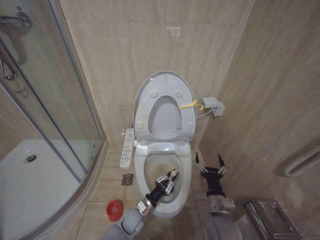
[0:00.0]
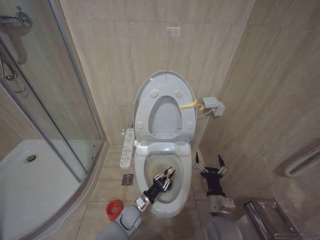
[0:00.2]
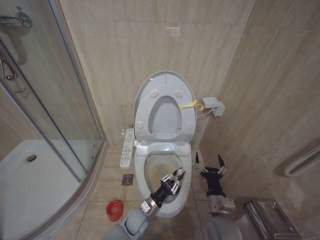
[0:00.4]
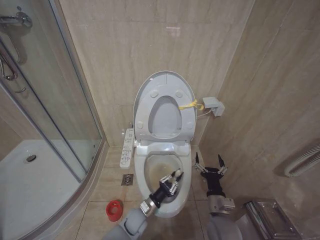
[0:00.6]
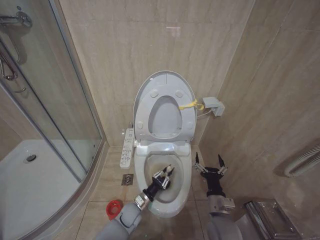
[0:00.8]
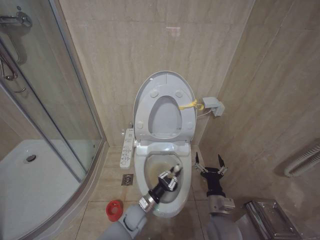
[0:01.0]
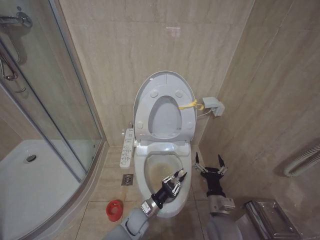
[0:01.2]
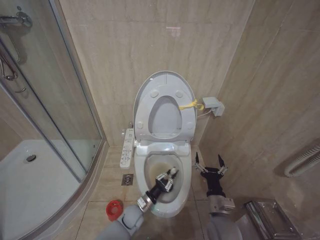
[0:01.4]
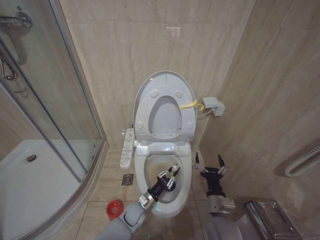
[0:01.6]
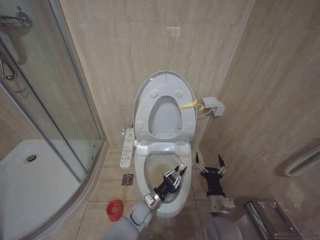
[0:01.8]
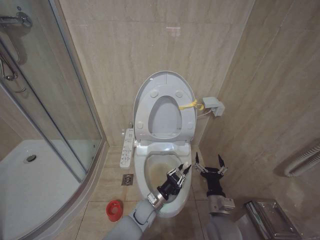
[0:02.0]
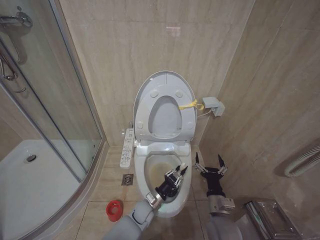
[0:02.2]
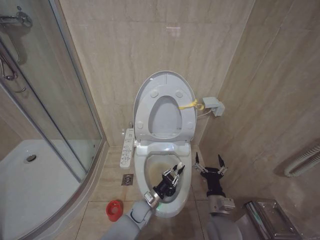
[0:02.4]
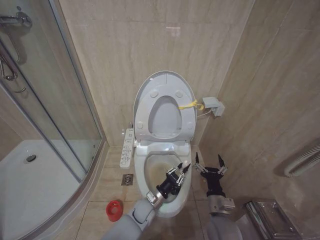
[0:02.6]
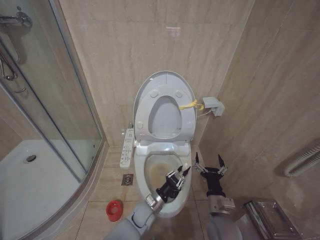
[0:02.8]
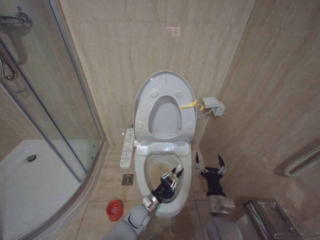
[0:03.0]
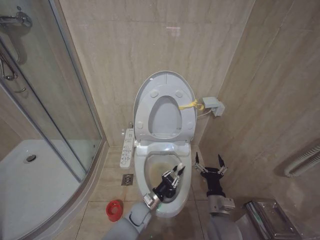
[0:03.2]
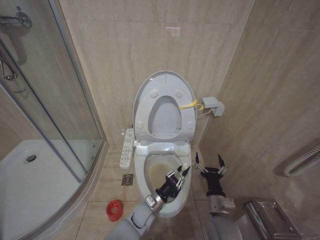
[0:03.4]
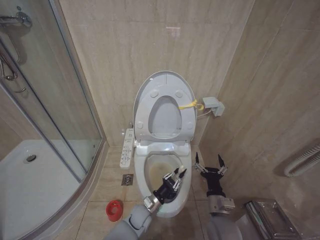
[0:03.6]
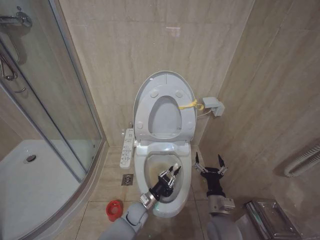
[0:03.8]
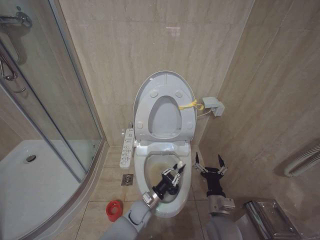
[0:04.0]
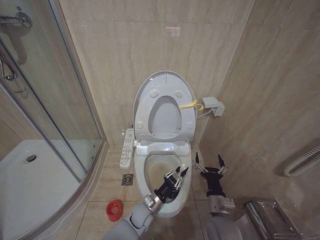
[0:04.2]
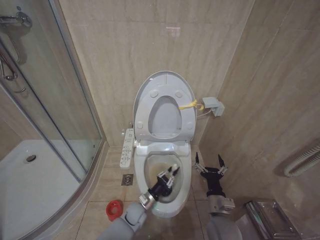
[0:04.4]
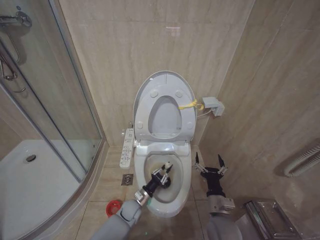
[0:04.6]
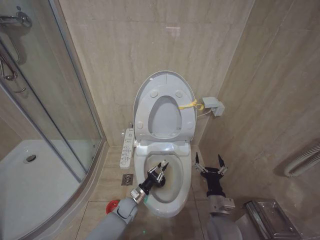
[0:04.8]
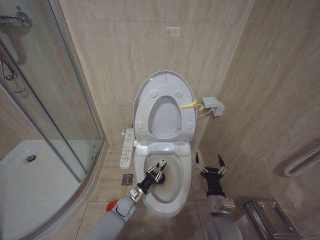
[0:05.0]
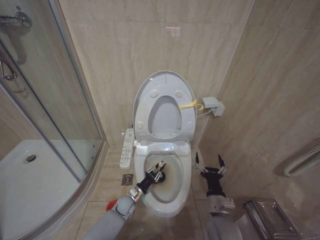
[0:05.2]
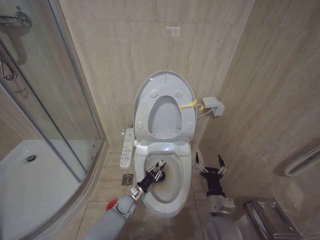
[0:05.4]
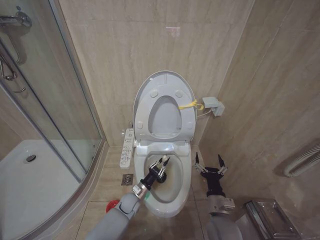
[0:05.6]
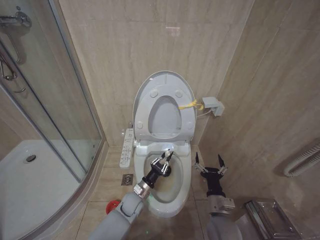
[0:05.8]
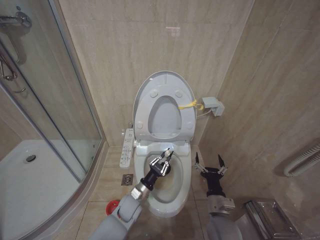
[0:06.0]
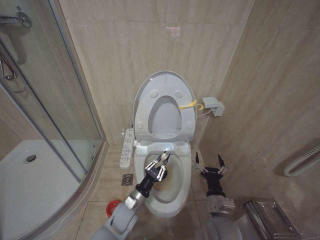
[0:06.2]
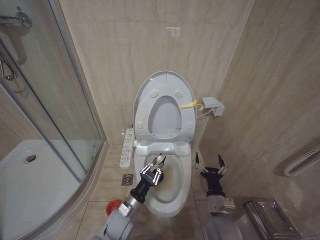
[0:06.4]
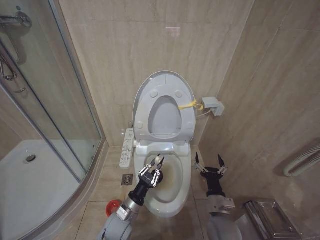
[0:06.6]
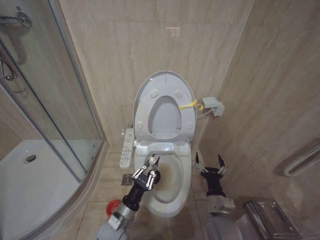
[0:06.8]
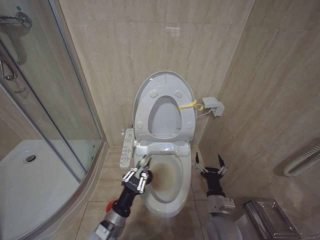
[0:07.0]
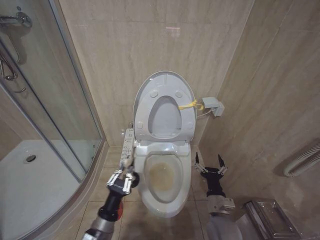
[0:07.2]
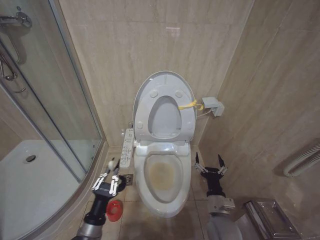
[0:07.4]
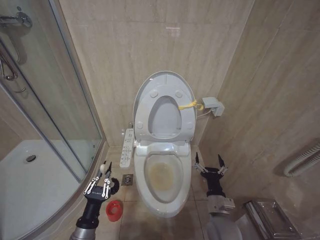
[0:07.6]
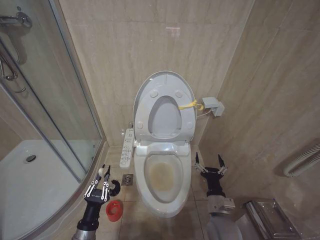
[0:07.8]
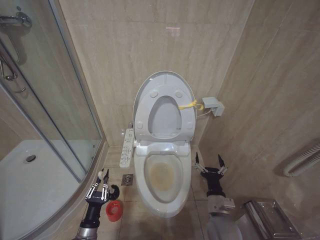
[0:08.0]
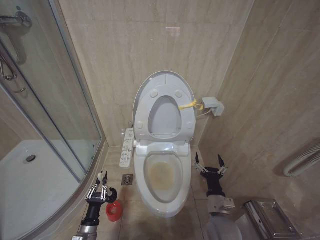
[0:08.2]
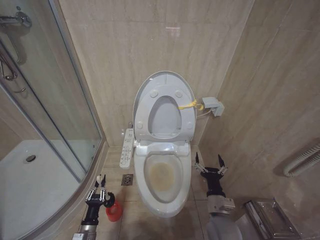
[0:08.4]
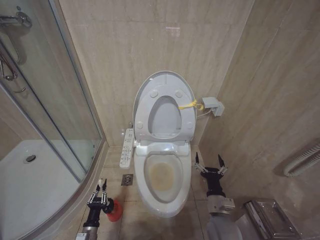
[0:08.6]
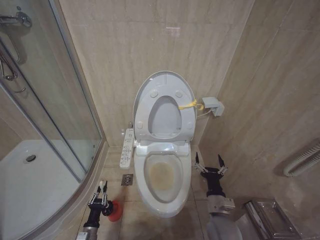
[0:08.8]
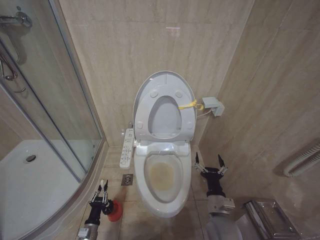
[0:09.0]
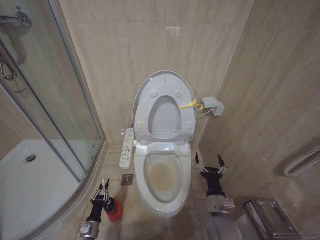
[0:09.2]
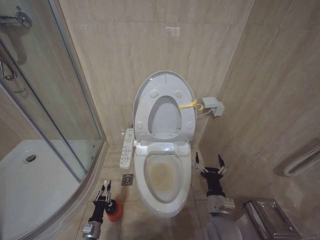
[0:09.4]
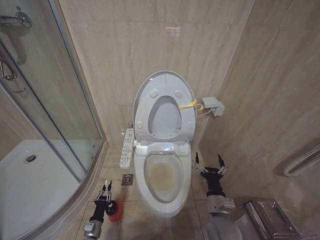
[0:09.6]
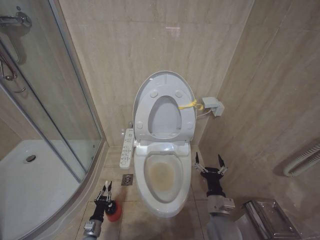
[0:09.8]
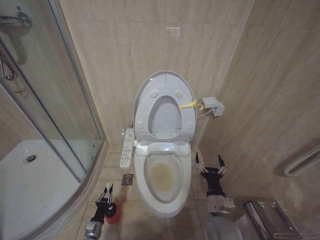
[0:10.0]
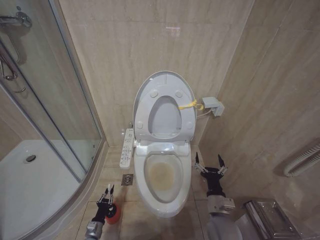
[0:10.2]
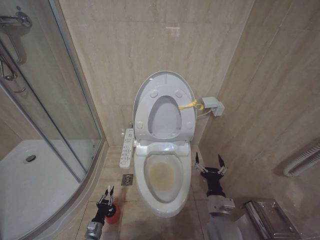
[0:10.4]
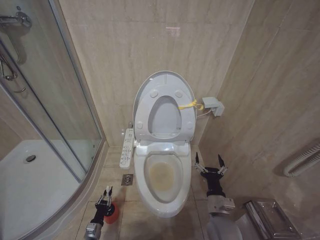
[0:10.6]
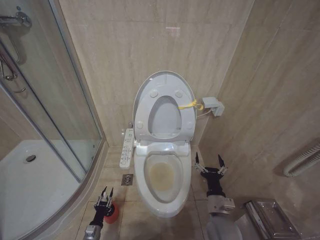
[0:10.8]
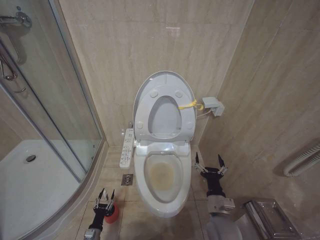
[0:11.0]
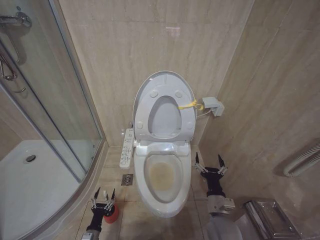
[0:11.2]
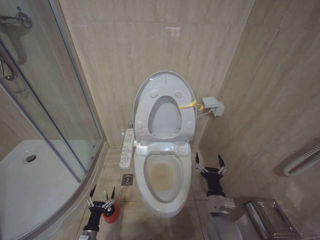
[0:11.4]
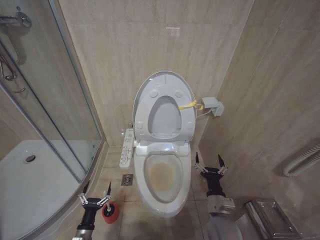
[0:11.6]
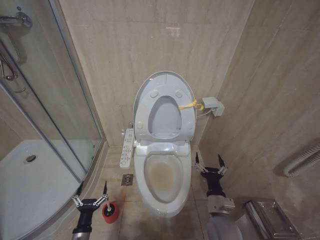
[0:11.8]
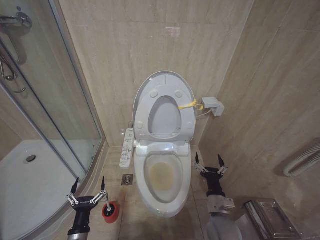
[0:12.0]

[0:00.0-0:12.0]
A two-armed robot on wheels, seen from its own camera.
Task of the whole recording: Open the toilet lid, clean the toilet bowl with a toilet brush, close the toilet lid, and flush.
0:00.0 to 0:01.6: The grippers move only a little.
0:03.0 to 0:04.4: There are only small adjustments of the grippers.
0:04.4 to 0:06.0: The left gripper travels upward by some 5 cm.
0:06.0 to 0:07.6: The left gripper travels backward and to the left by roughly 20 cm.
0:07.6 to 0:09.0: The left gripper shifts about 20 cm downward.
0:09.0 to 0:10.4: The left gripper moves downward, approximately 5 cm.
0:10.4 to 0:12.0: The left gripper is displaced upward and backward by about 20 cm, and opens.

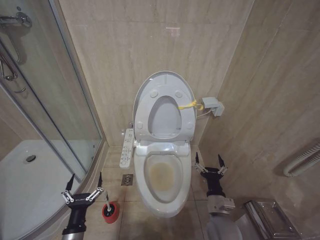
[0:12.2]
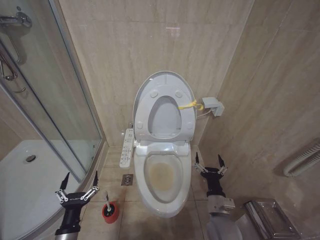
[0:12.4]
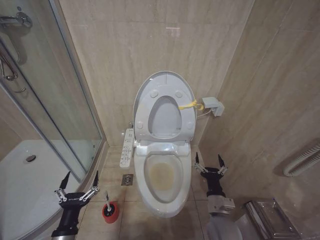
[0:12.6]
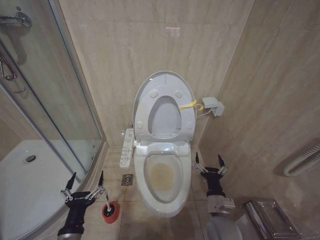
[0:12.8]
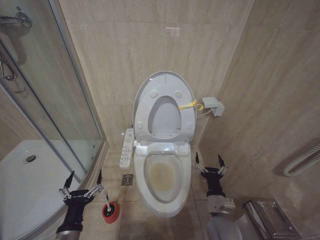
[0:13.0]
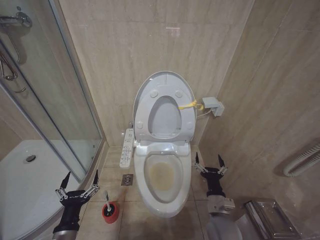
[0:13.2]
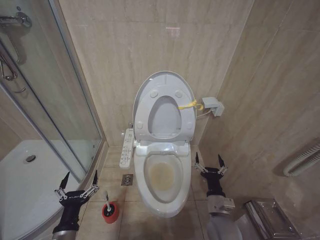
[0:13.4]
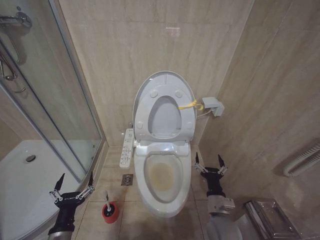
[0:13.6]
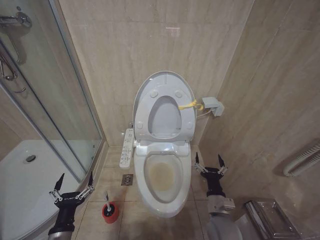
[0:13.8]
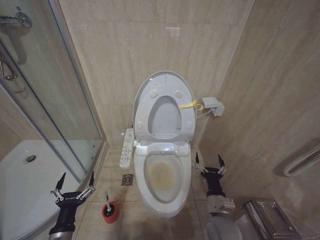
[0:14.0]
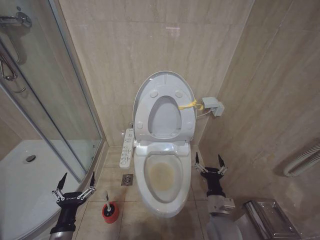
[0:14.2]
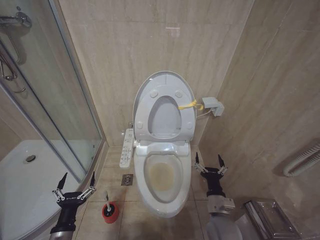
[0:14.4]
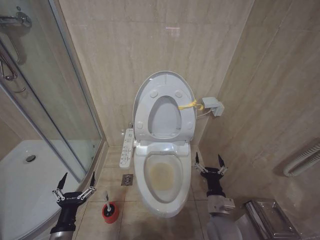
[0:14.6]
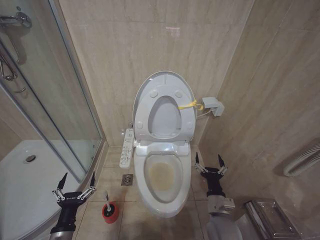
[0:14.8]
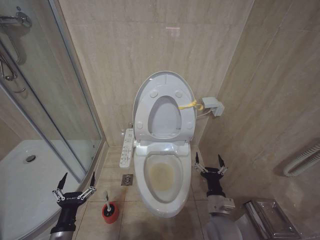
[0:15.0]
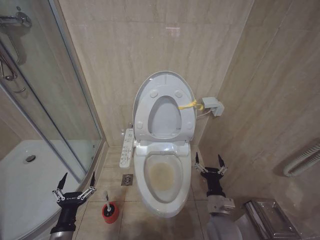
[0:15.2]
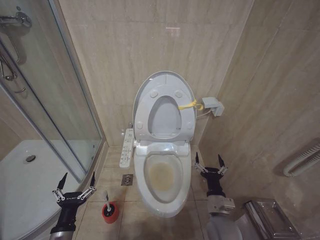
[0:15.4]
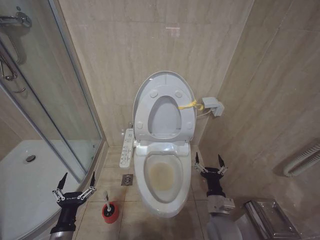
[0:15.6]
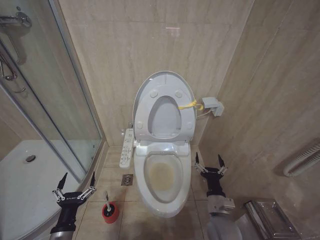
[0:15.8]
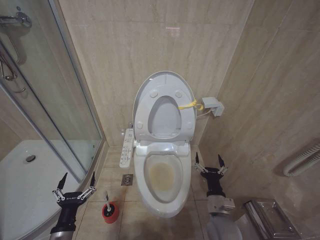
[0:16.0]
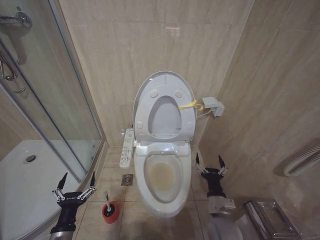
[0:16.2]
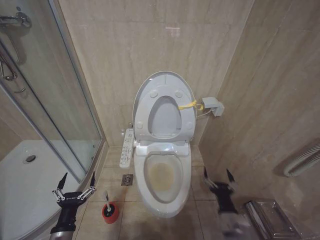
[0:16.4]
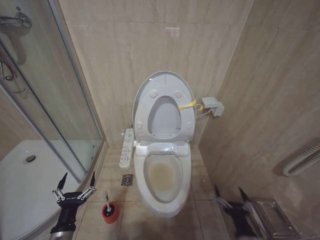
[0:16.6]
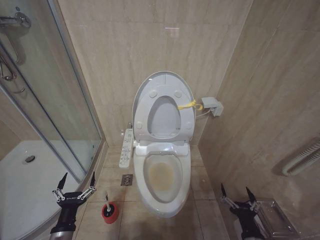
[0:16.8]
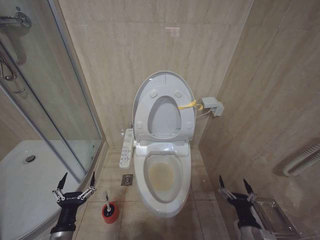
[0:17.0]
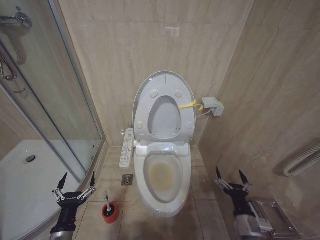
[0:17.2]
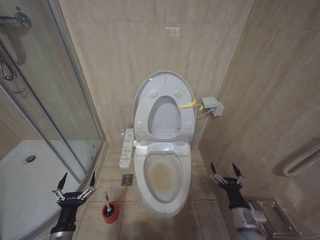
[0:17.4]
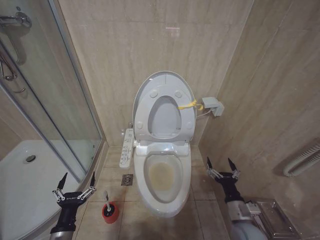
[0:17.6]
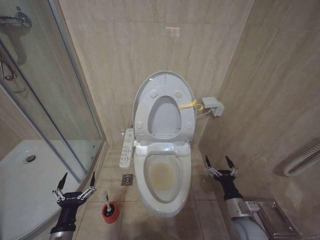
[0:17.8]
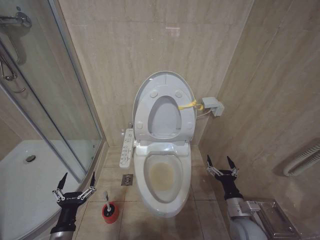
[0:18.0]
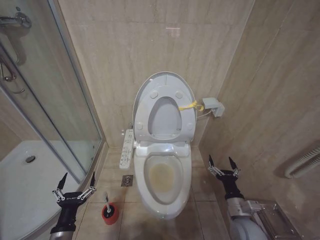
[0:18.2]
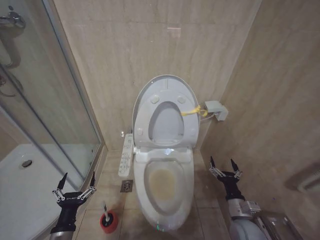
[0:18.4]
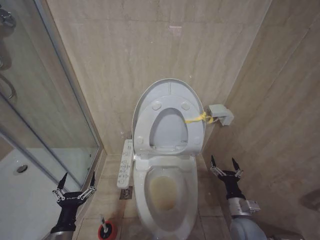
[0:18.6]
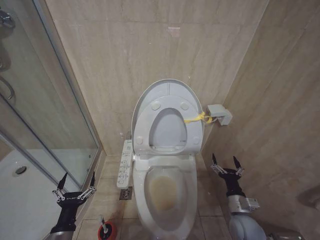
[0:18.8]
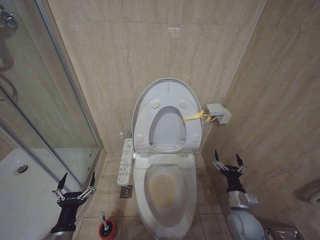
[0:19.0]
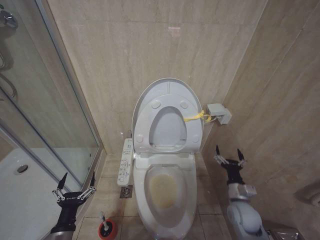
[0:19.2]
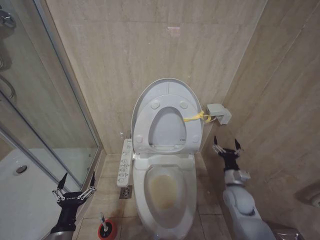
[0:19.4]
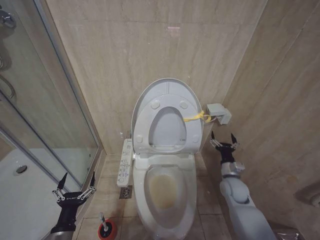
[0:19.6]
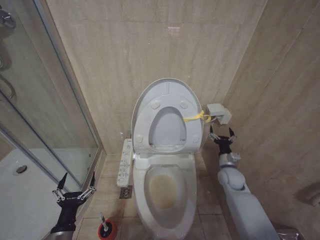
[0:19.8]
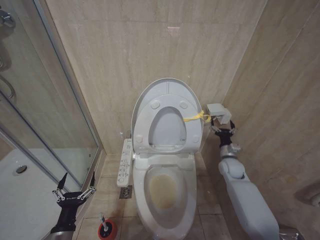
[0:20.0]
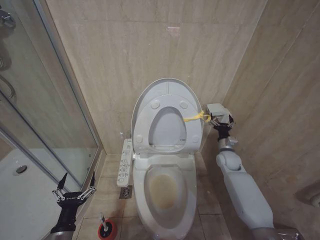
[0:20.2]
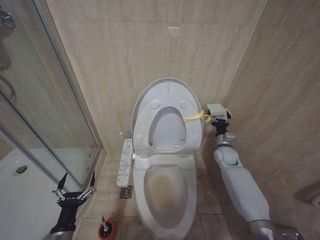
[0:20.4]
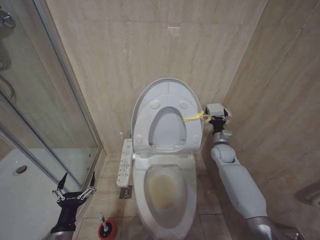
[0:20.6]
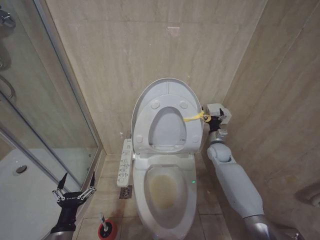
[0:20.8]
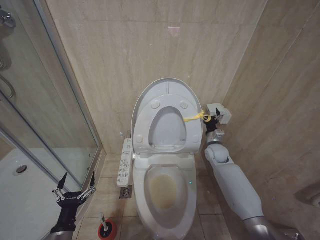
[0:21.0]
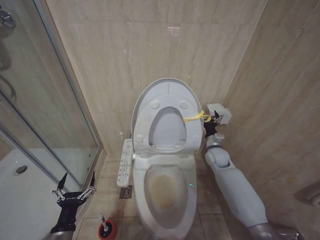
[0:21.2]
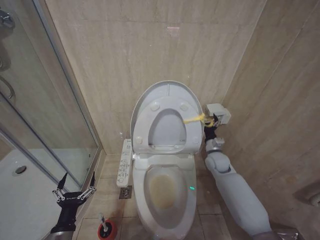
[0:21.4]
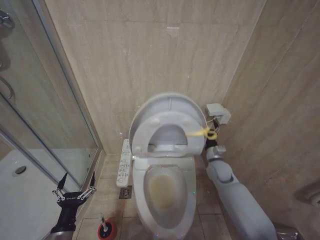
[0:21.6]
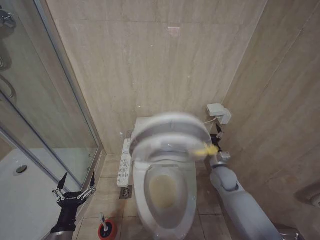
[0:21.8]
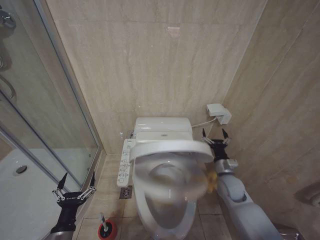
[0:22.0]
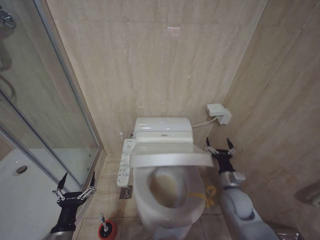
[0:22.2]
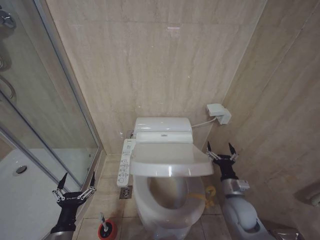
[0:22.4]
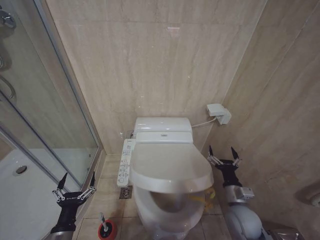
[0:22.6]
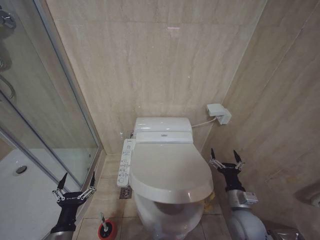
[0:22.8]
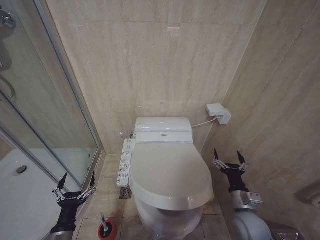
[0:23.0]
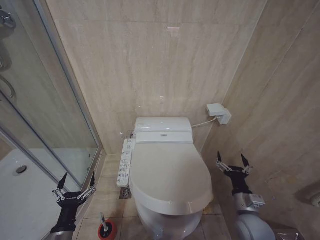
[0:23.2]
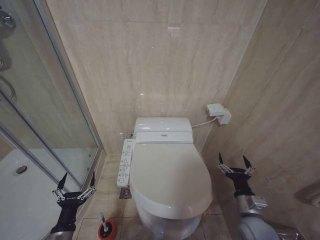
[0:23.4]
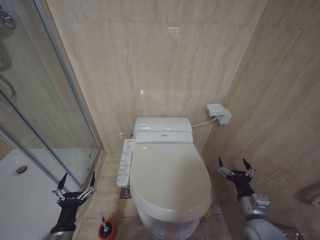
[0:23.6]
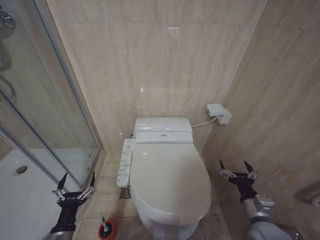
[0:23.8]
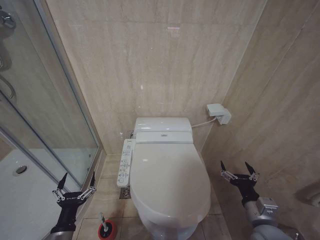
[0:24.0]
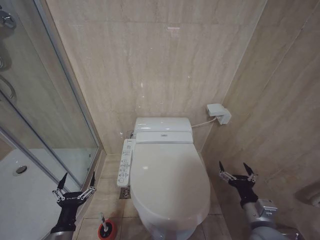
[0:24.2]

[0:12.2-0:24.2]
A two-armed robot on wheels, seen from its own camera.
Task of the whole recording: Open the toilet lid, clean the toilet bowl with a toilet brush, close the toilet lid, and flush.
0:13.8 to 0:15.2: Both grippers stay put.
0:15.2 to 0:16.6: The right gripper travels backward and to the right by approximately 10 cm.
0:16.6 to 0:18.2: The right gripper travels forward by some 10 cm.
0:18.2 to 0:19.8: The right gripper shifts some 15 cm forward.
0:19.8 to 0:21.2: The right gripper moves forward and upward, approximately 10 cm.
0:21.2 to 0:22.6: The right gripper goes roughly 25 cm backward.
0:22.6 to 0:24.2: The right gripper moves backward, about 10 cm.
